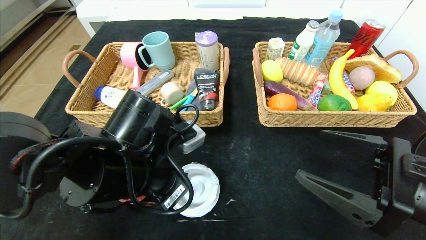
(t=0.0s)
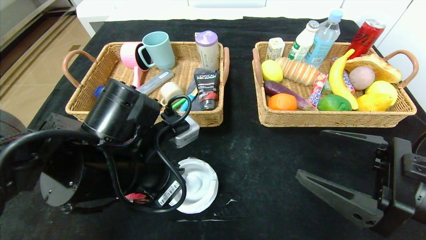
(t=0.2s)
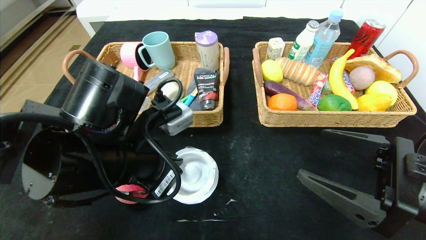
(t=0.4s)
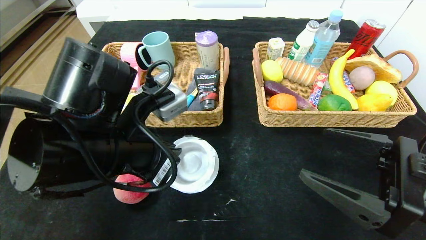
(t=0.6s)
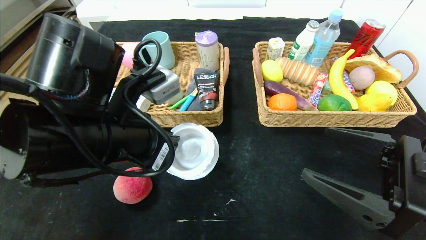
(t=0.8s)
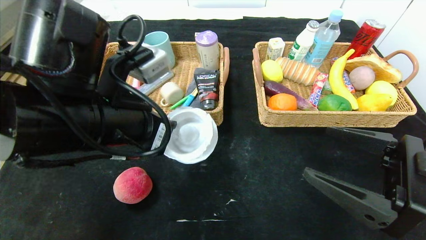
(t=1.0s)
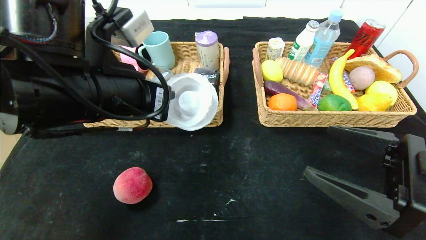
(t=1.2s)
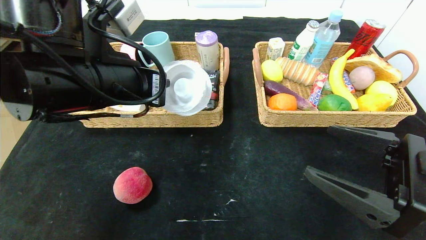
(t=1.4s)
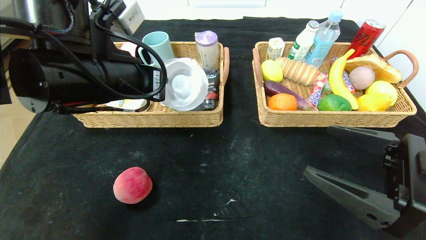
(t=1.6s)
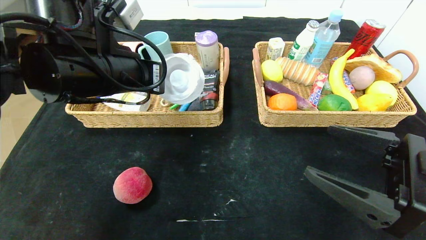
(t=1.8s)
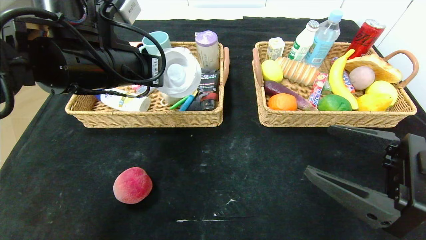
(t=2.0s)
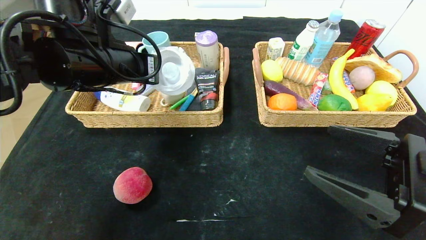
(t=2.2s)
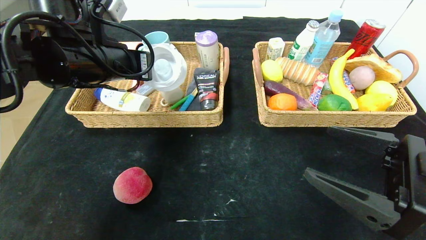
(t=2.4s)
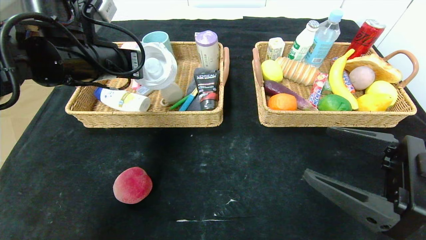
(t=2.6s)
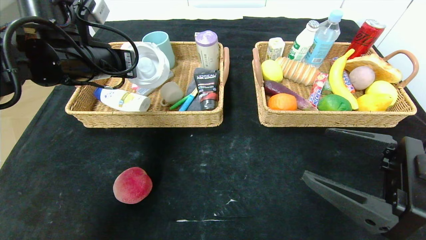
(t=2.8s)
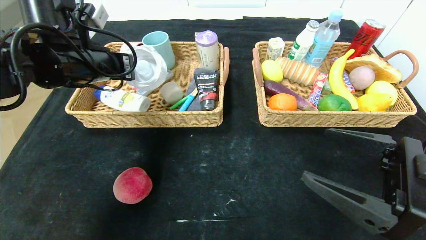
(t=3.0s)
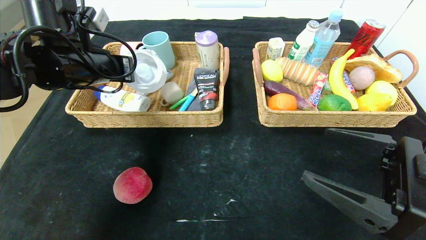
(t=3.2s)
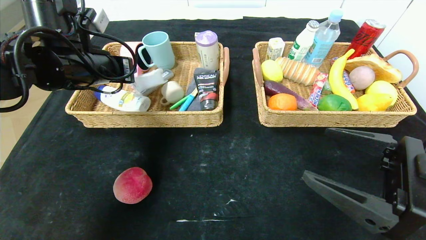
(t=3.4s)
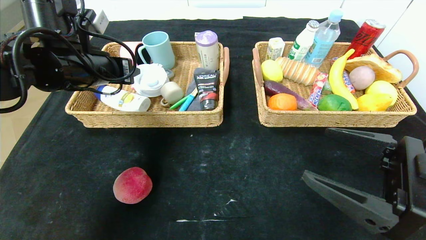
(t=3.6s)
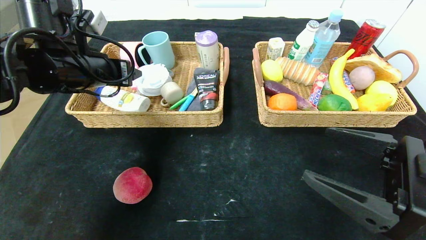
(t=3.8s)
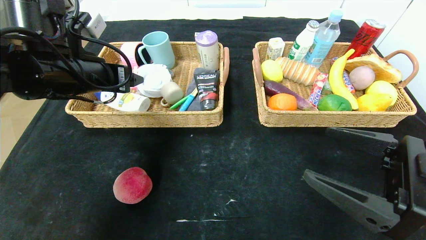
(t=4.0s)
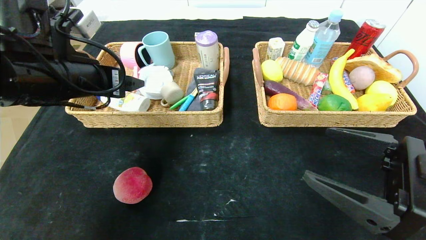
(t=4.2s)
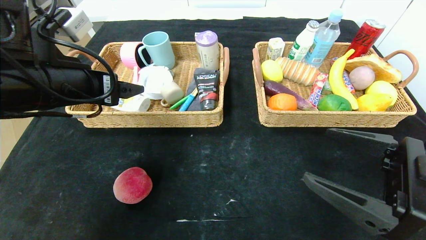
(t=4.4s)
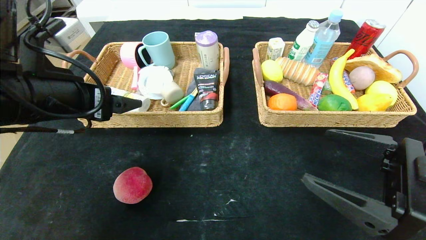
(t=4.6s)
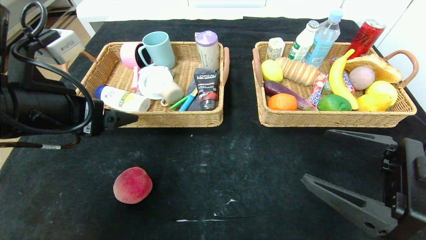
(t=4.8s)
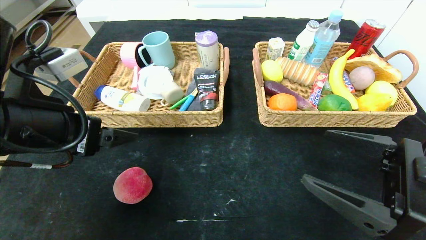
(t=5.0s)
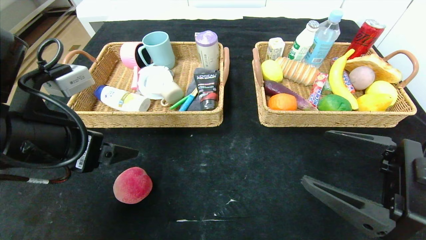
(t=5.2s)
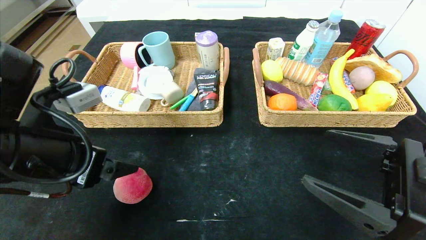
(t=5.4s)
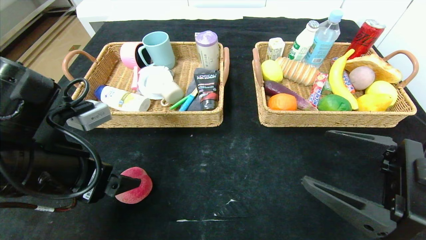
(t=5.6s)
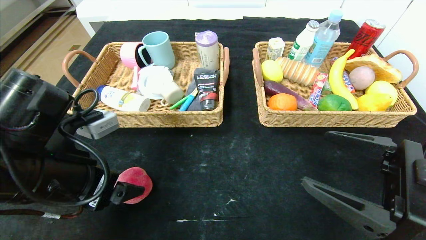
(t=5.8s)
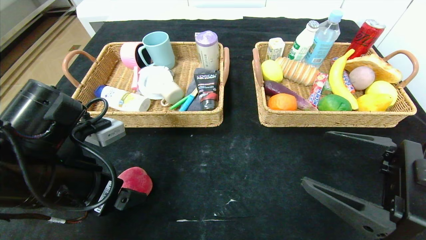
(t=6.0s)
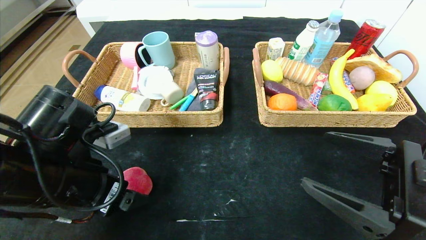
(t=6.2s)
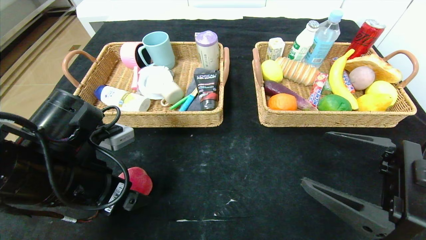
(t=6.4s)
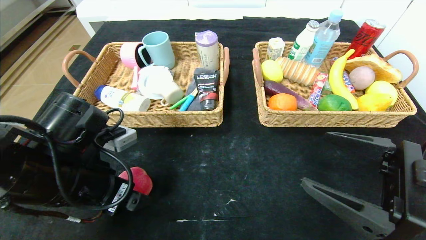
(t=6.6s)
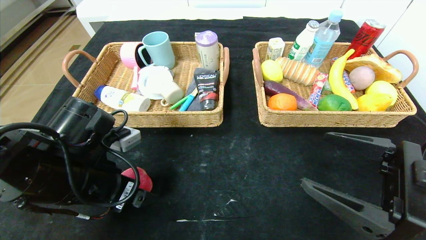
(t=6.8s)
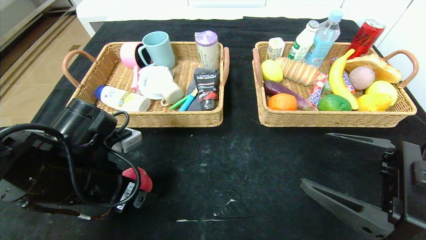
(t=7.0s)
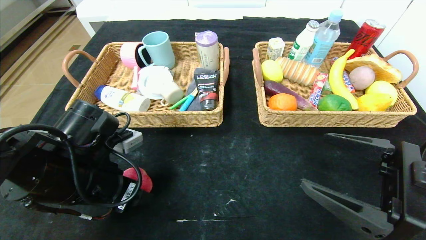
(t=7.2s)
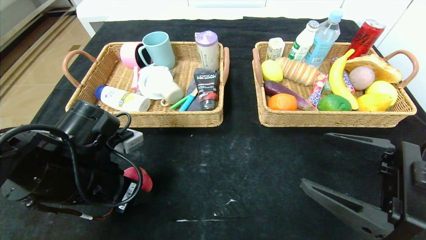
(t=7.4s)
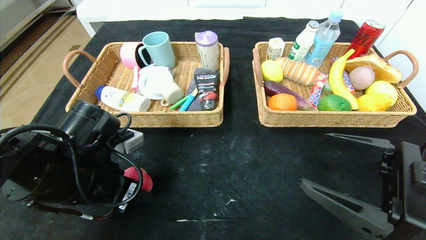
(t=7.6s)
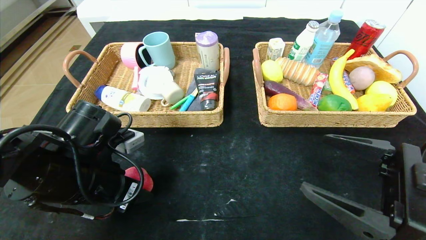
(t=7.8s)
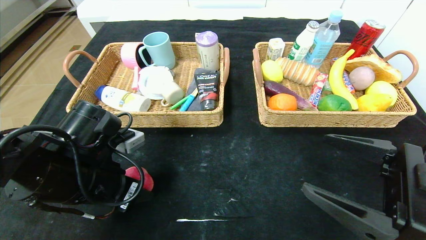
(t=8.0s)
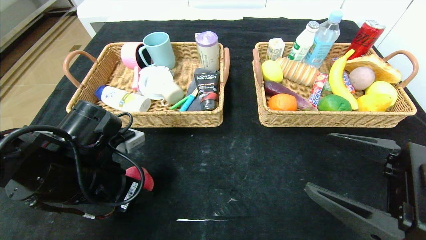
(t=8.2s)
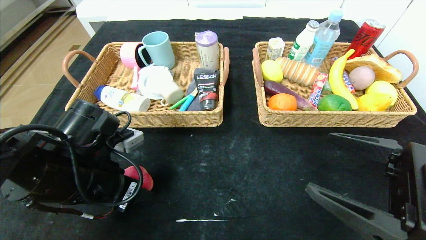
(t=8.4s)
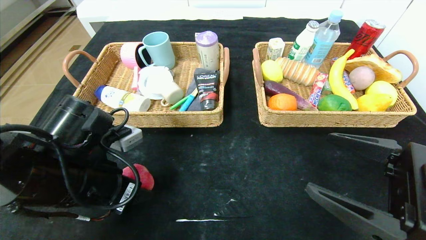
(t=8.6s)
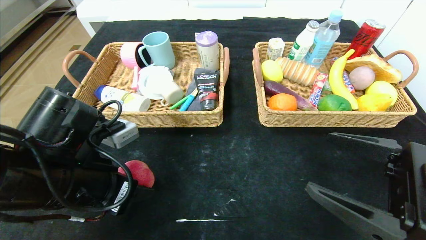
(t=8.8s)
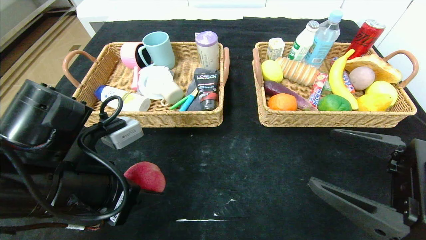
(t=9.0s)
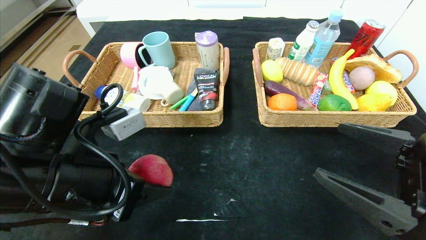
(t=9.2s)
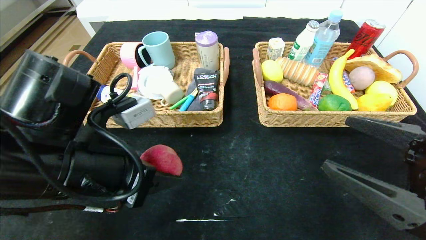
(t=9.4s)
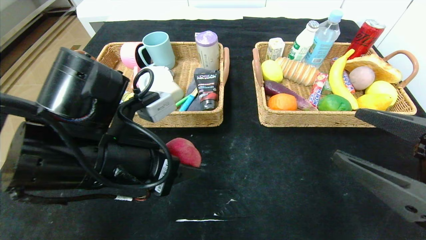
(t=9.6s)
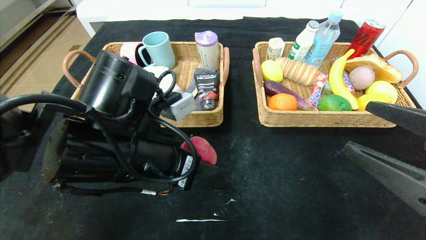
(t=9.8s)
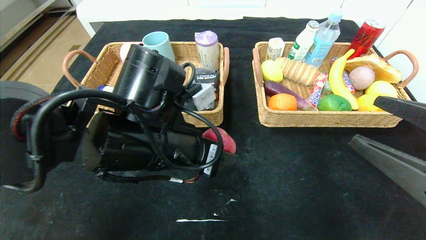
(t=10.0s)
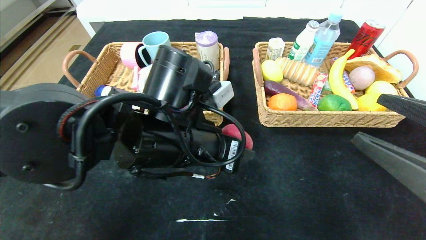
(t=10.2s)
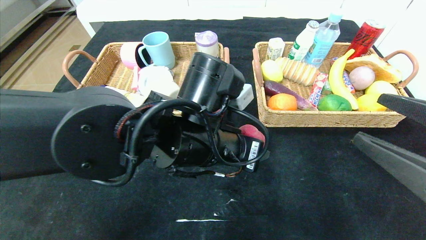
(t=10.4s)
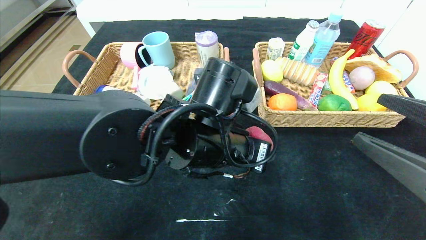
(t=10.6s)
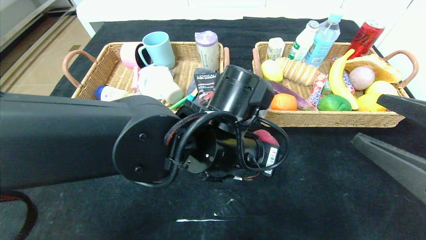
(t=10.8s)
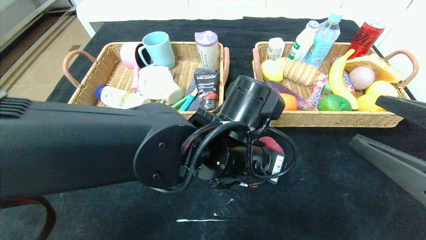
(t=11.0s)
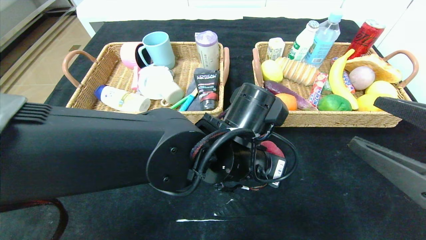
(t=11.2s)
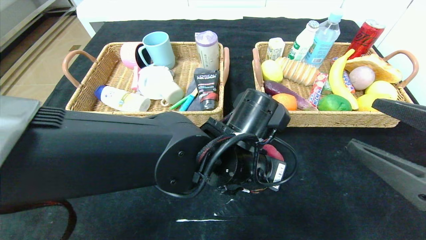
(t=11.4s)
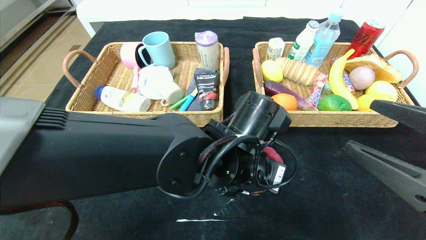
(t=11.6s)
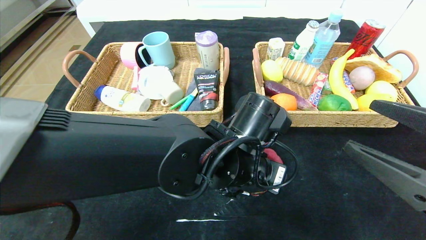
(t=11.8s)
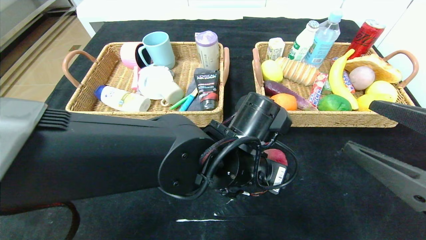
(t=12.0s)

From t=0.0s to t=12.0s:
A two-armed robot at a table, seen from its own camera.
Step, from t=0.0s to t=5.0s: Pick up the tape and put it in the left basket.
From t=0.0s to t=1.6s: The left gripper travels upward by approximately 10 cm.
From t=1.6s to t=3.0s: The left gripper heads forward and to the left, covering approximately 10 cm.
From t=3.0s to t=4.4s: The left gripper travels backward by about 10 cm, and opens up.
From t=4.4s to t=6.0s: The left gripper is displaced downward and backward by some 10 cm.
From t=6.0s to t=7.6s: The left gripper closes its fingers.
From t=7.6s to t=9.0s: The left gripper moves approximately 5 cm.
From t=9.0s to t=10.4s: The left gripper moves to the right, about 15 cm.
From t=10.4s to t=12.0s: The left gripper heads to the right, covering about 5 cm.

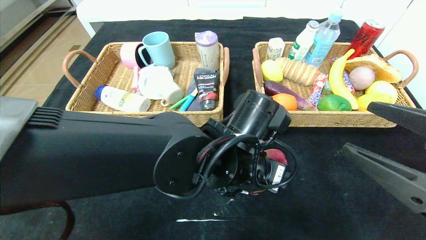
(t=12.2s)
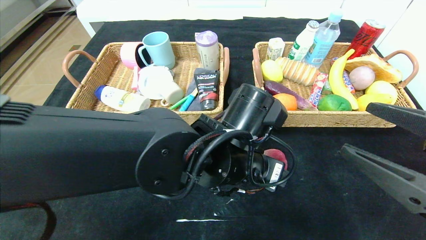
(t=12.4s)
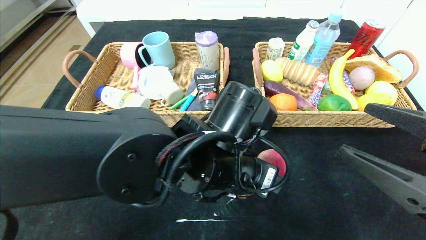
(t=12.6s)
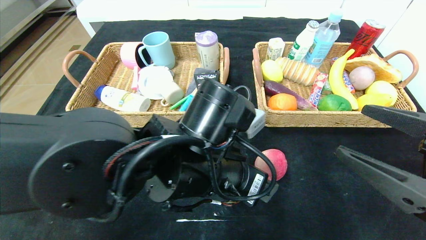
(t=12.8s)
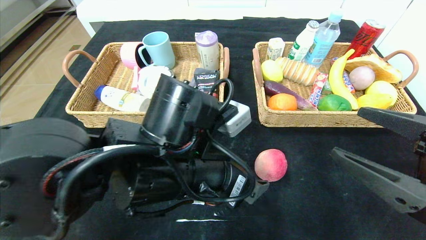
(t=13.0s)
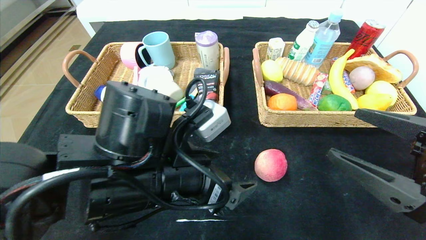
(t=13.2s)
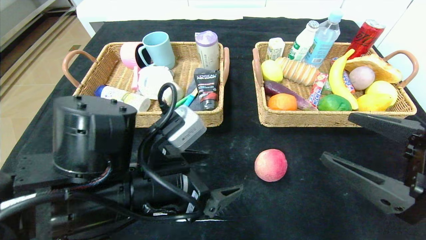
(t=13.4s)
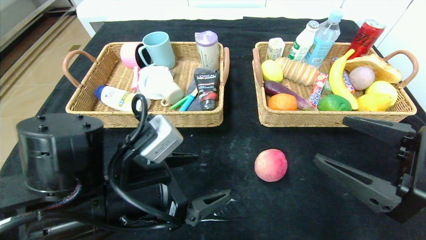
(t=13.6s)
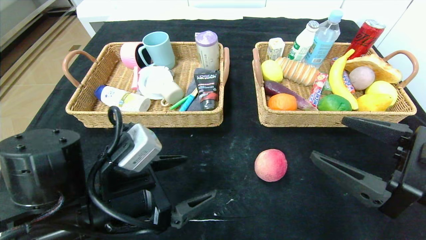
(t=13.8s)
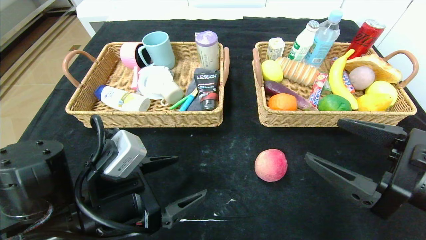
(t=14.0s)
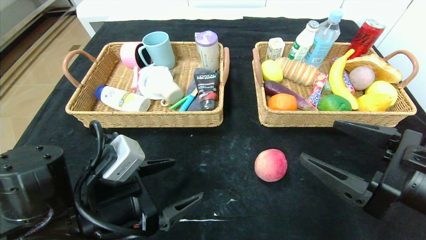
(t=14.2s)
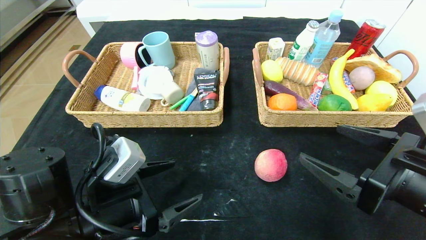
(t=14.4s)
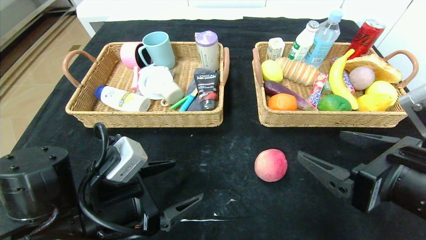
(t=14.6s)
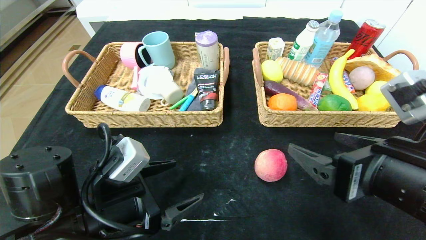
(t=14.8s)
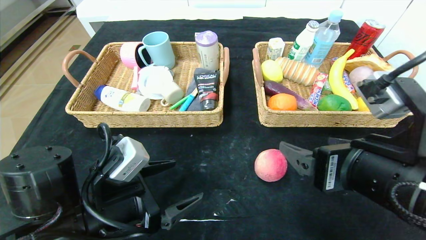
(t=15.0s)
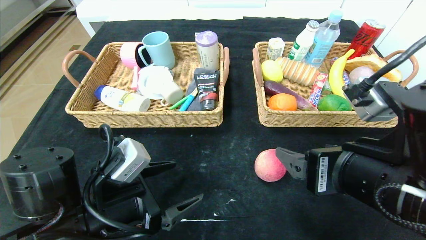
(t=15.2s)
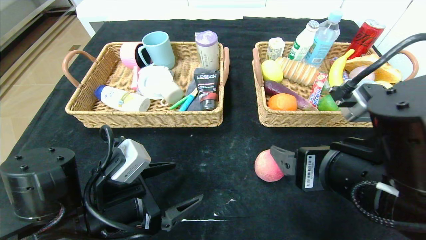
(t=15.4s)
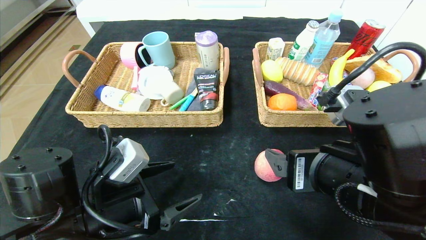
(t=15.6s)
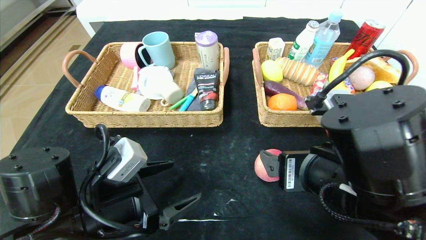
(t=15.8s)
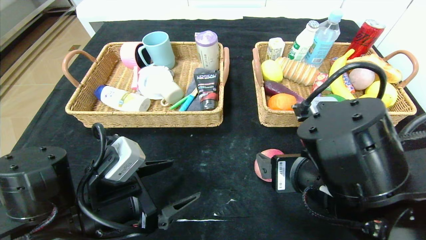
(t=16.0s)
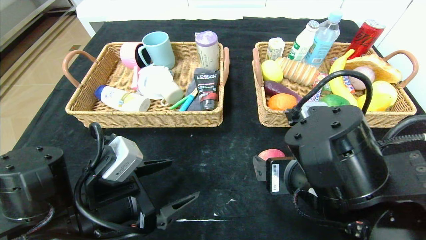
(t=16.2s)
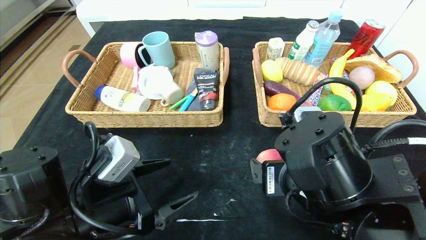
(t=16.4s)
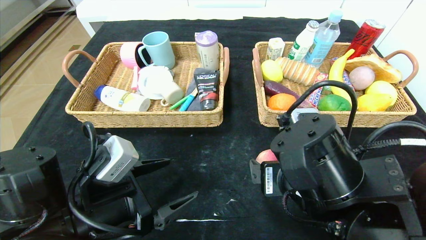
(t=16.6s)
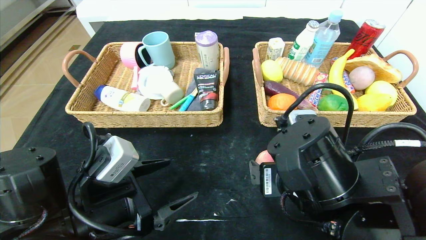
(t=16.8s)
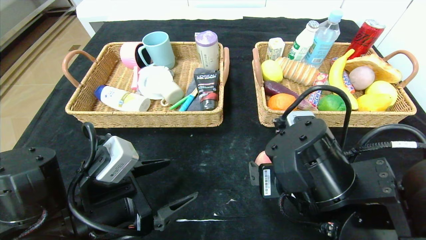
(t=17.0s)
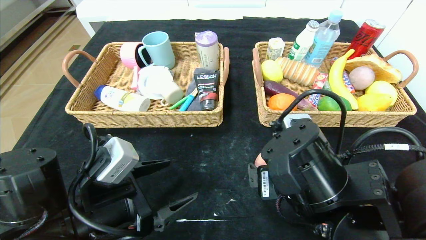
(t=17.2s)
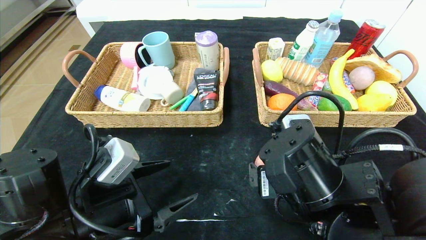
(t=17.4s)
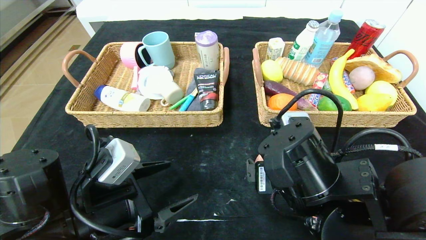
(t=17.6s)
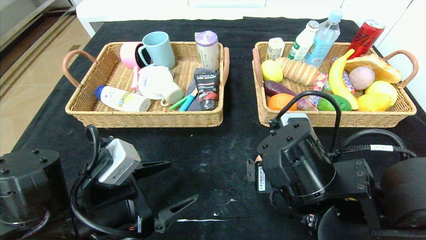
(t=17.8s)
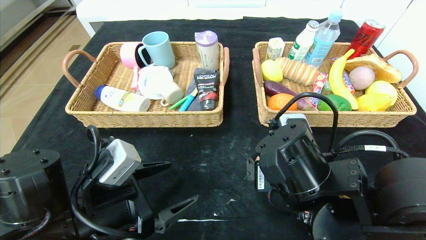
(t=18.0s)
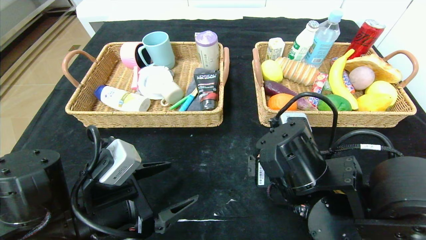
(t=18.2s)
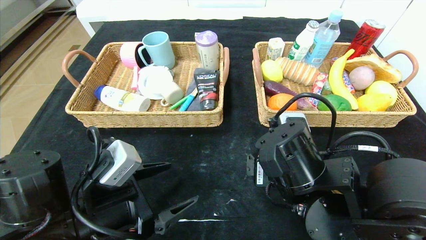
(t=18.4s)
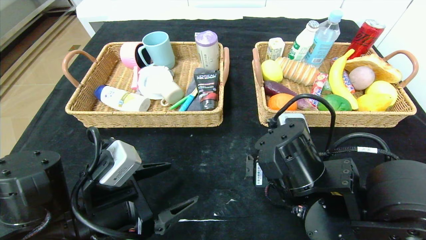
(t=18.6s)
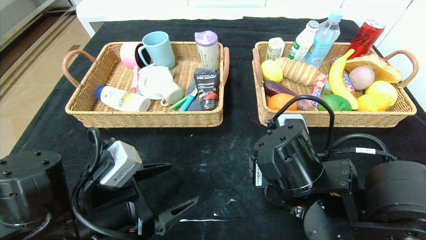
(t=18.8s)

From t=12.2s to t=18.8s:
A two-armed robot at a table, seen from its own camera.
From t=12.2s to t=13.8s: The left gripper heads to the left, covering some 20 cm.
From t=13.8s to t=15.4s: The right gripper goes some 10 cm to the left.
From t=15.4s to t=17.2s: The right gripper moves approximately 5 cm.
From t=17.2s to t=18.8s: The grippers make only small movements.
